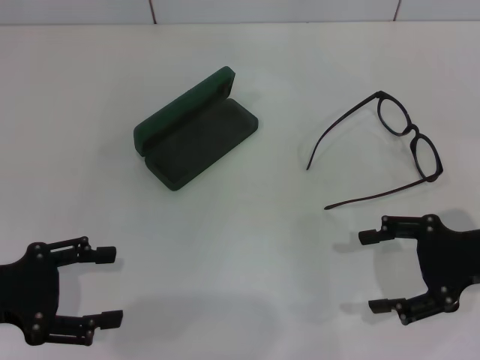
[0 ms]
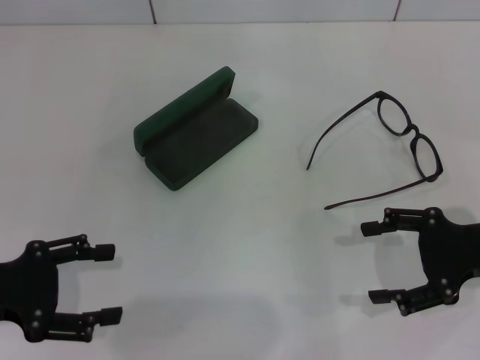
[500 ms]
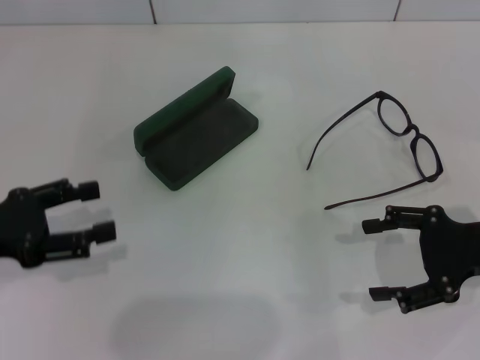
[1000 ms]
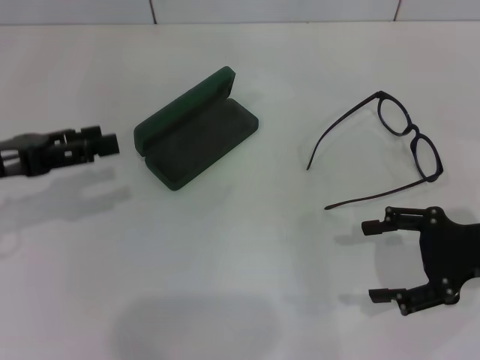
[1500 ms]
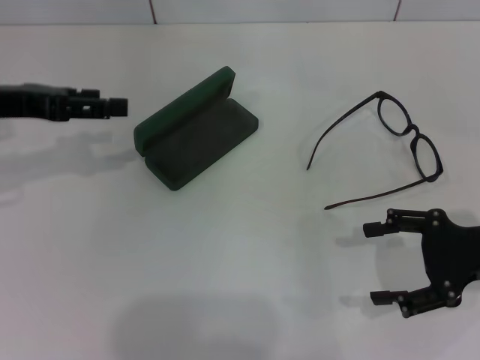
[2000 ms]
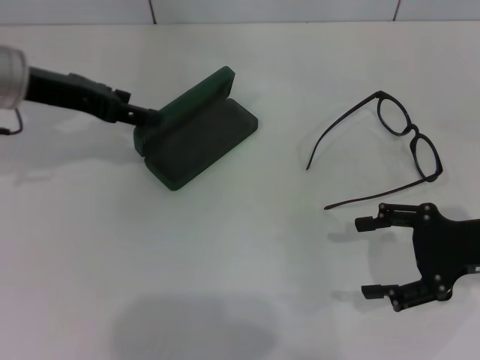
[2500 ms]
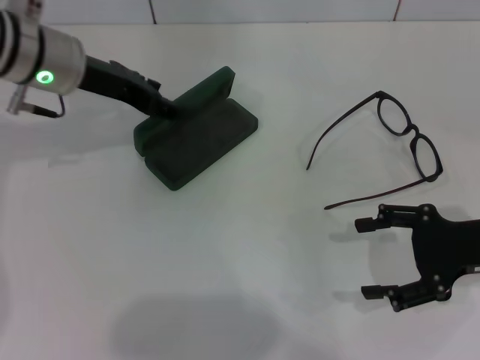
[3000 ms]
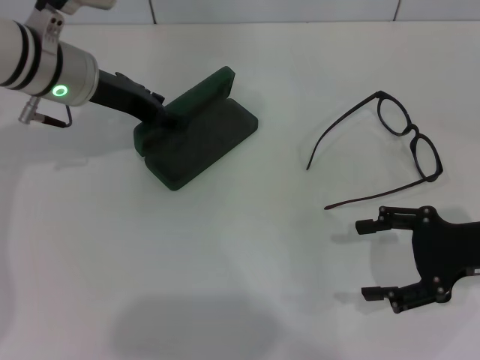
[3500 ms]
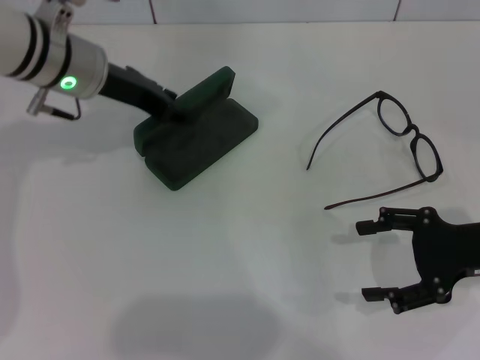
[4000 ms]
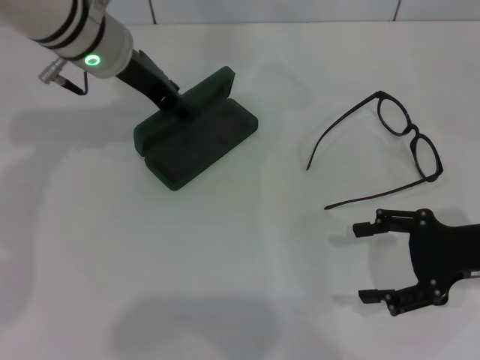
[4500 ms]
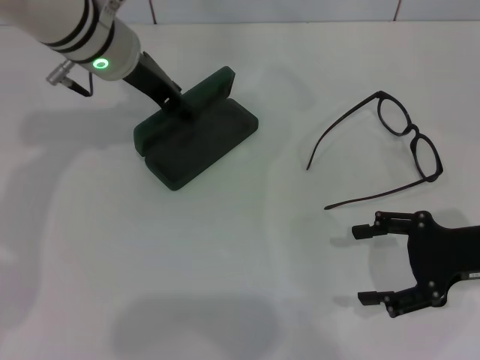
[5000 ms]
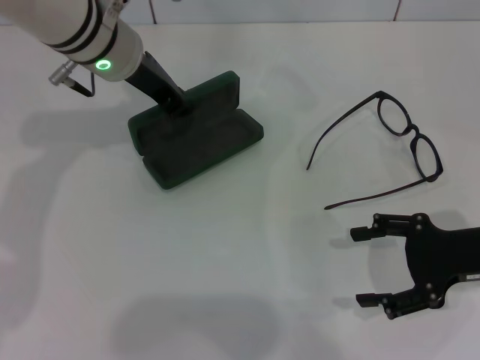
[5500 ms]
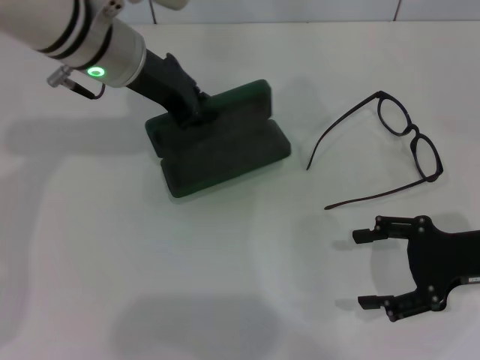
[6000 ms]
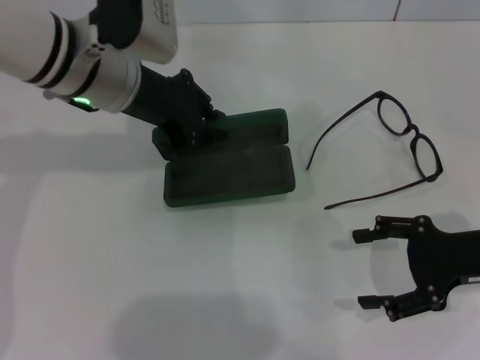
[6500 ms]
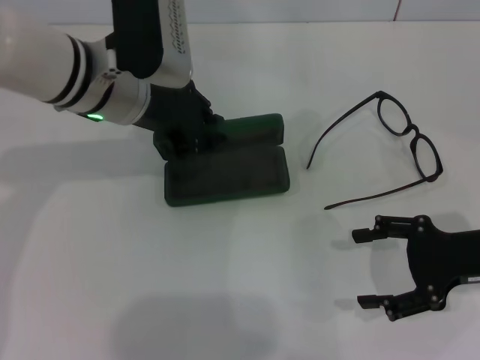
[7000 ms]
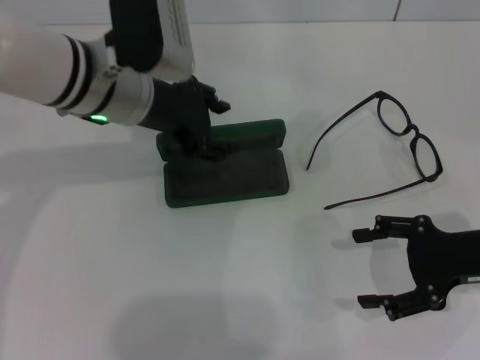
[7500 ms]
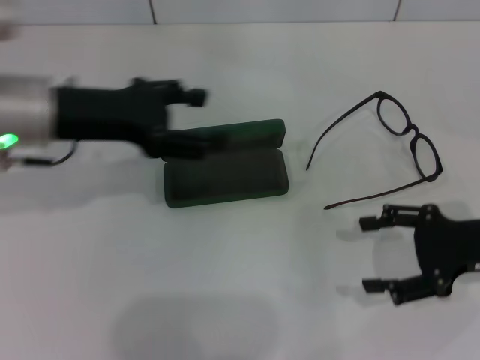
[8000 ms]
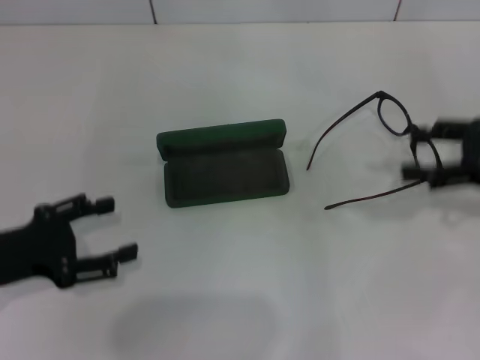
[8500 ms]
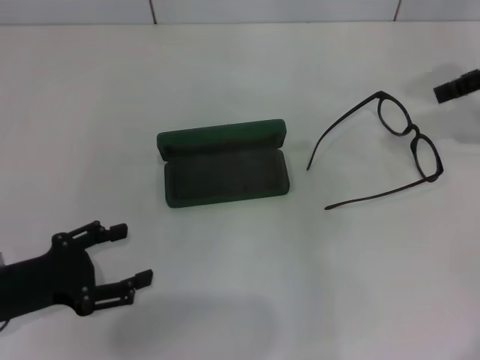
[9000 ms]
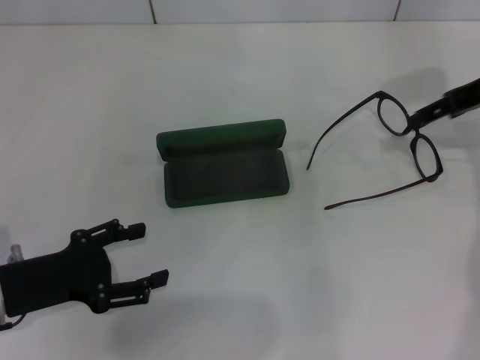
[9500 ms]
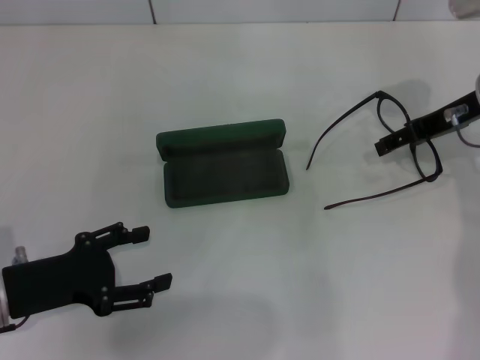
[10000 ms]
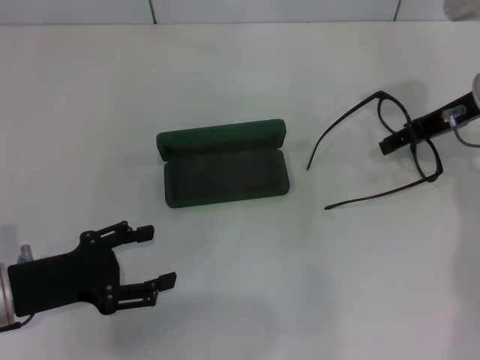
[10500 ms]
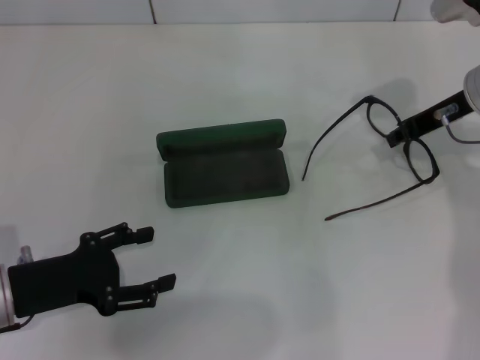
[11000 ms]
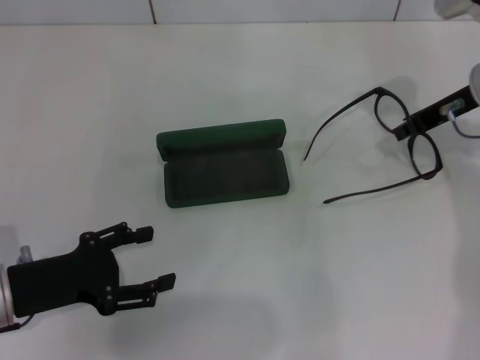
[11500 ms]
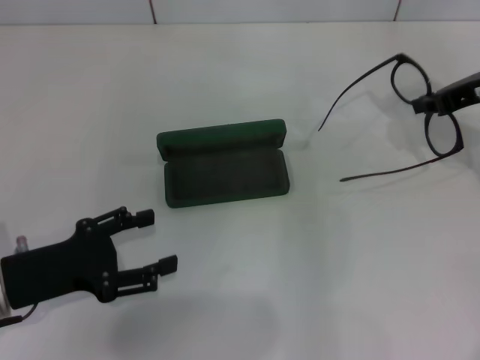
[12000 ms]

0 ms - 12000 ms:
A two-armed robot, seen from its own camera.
Step, 0 ms - 5000 ms: Grab the glasses case with your left hand.
Step, 6000 ms - 7000 ms: Place the glasses case in the center of the table with your left hand.
Step, 7500 ms - 11000 ms: Grab the eyeglass frame with your right hand.
0 ms - 2000 ms: The left gripper goes some 15 cm forward and upward.
2000 ms - 4000 ms: The left gripper moves to the right and forward, some 15 cm.
4000 ms - 6000 ms: The left gripper ends up some 5 cm from where it was, and closes its fingers.
6000 ms - 8000 ms: The left gripper goes about 10 cm to the left and backward, and opens up.
8000 ms - 10000 ms: The right gripper moves forward and upward, about 15 cm; the left gripper moves downward, backward and to the left, approximately 20 cm.
10000 ms - 12000 ms: The right gripper closes its fingers.

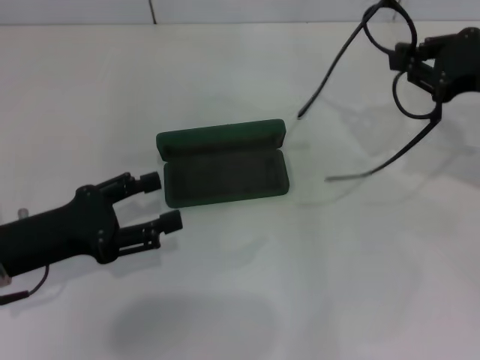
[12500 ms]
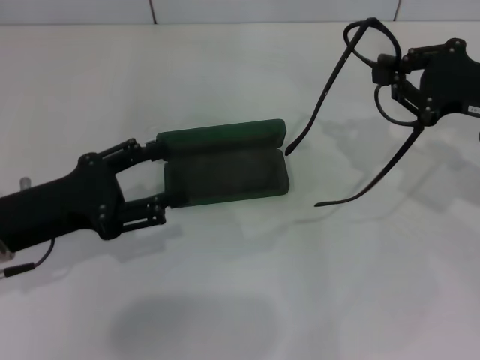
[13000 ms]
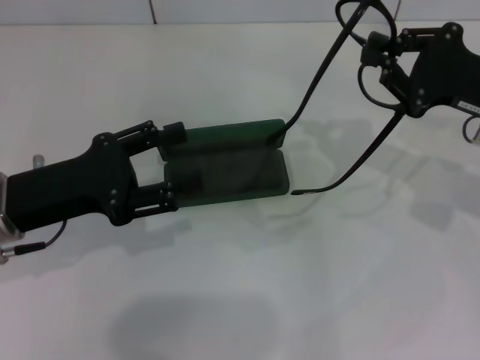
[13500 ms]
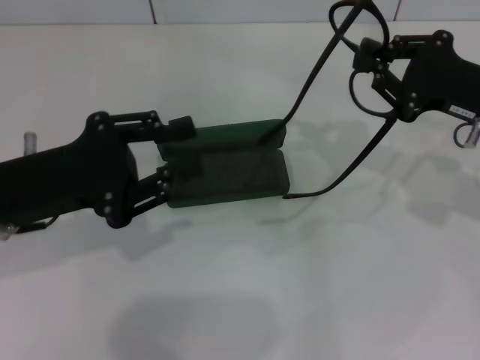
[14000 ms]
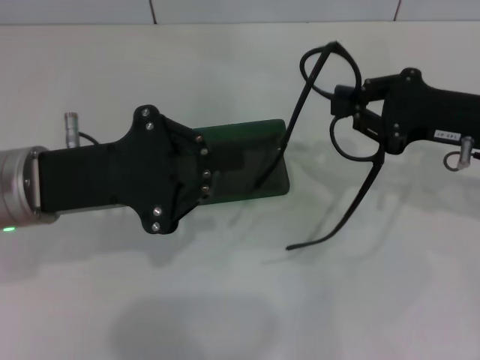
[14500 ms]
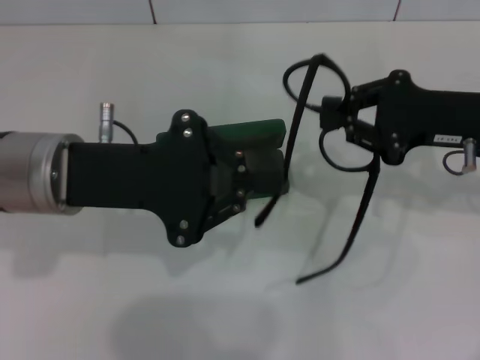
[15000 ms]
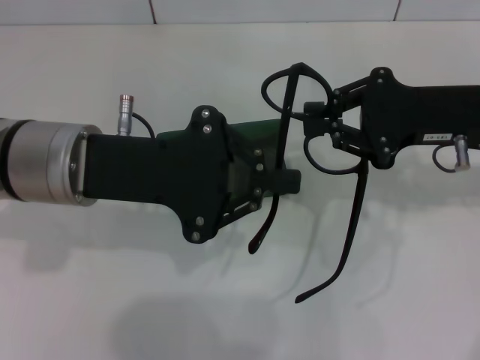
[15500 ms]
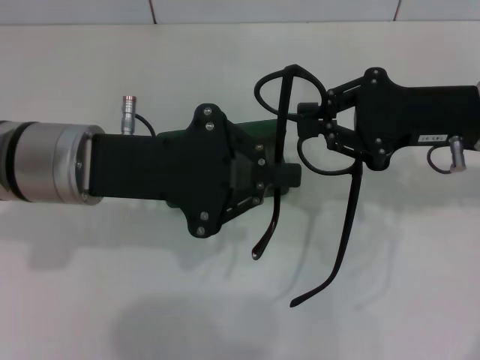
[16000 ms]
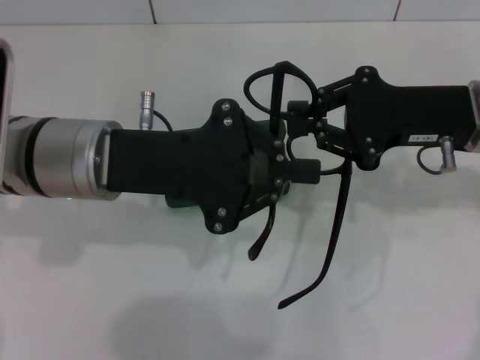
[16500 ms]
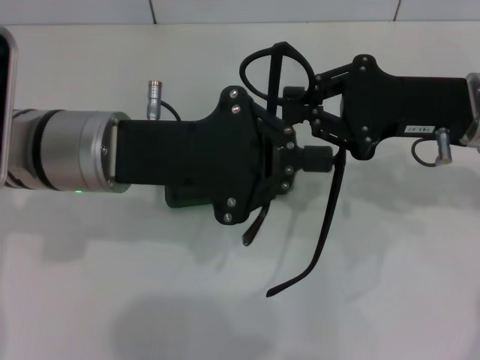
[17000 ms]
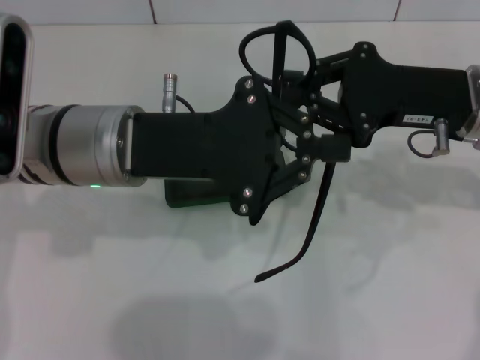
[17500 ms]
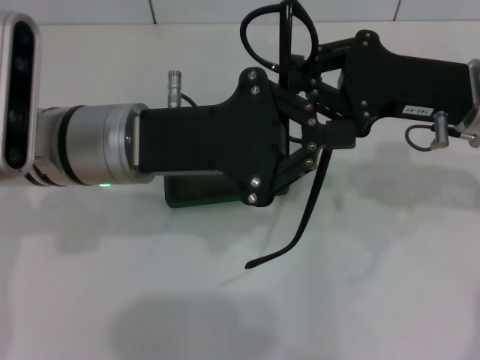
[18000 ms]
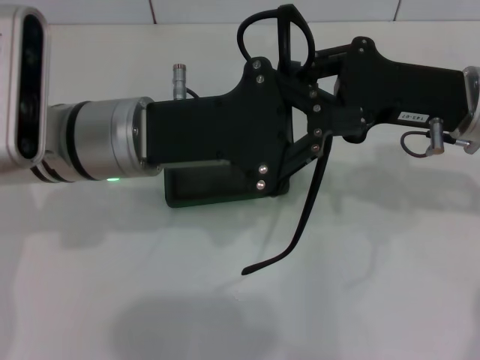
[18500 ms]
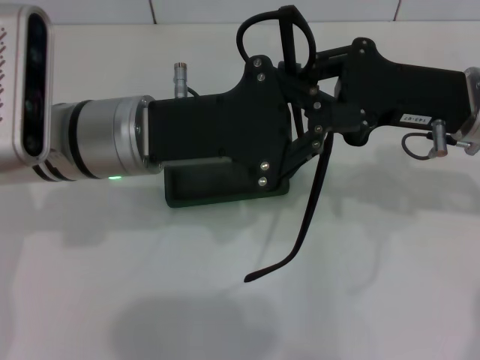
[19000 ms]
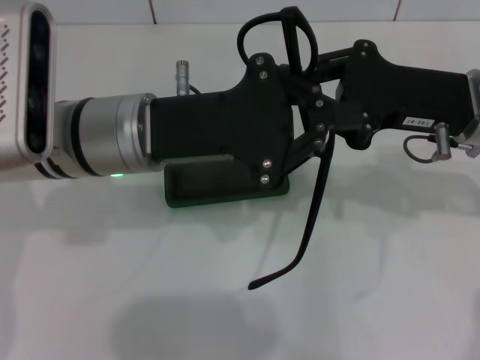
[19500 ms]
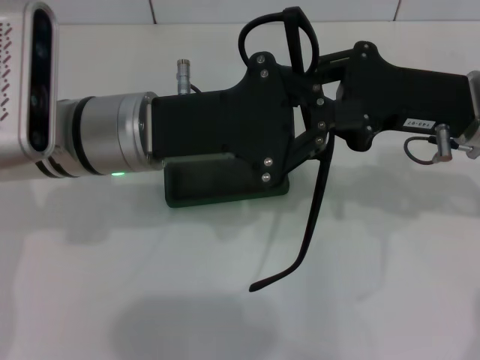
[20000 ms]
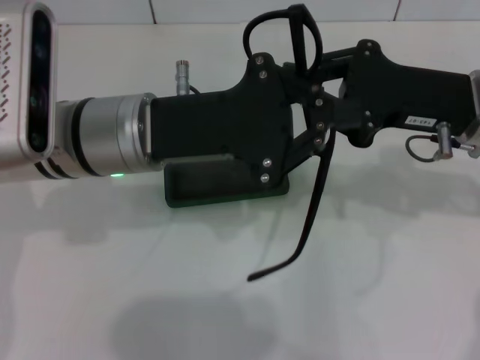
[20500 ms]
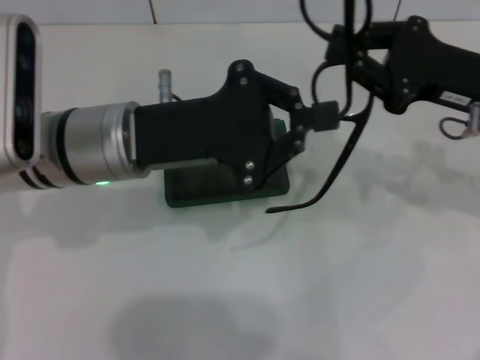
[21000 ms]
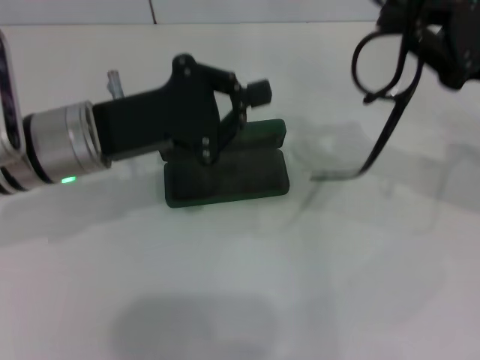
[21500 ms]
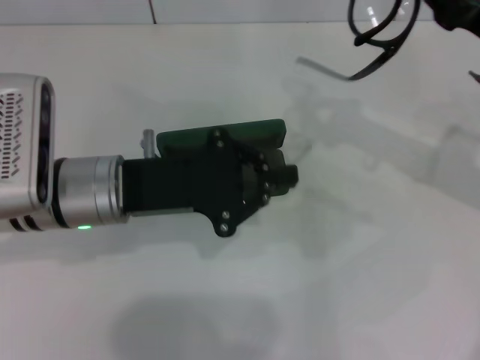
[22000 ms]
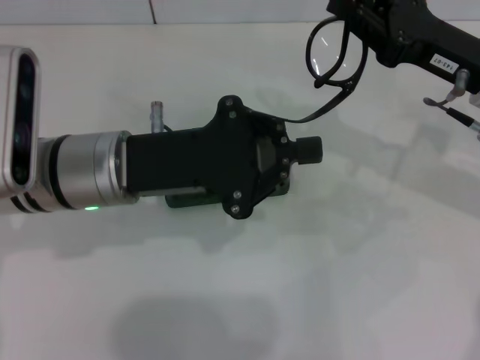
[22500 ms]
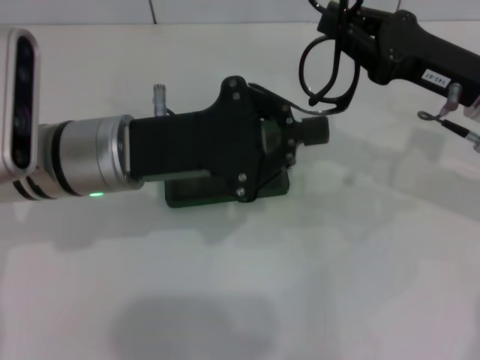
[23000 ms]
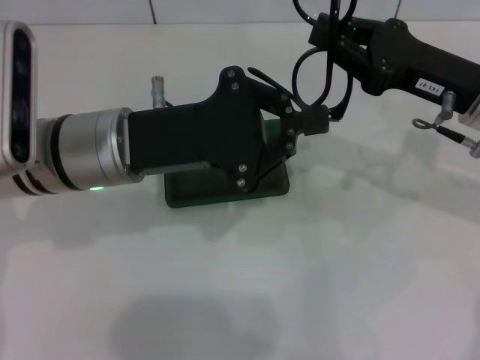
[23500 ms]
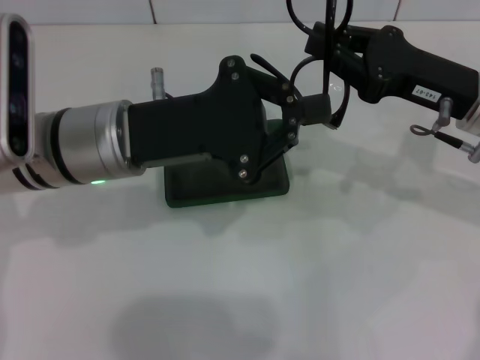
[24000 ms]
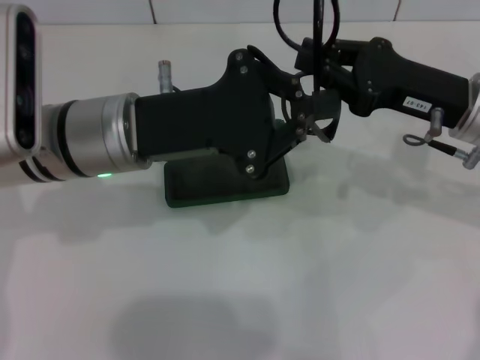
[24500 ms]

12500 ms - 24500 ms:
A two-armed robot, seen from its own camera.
12500 ms - 14500 ms: The left gripper shifts some 10 cm upward and to the right, and closes its fingers. Meanwhile the right gripper shifts by roughly 5 cm.
14500 ms - 16500 ms: The left gripper moves to the right, some 5 cm.
18500 ms - 20500 ms: Both grippers stay about where they are.

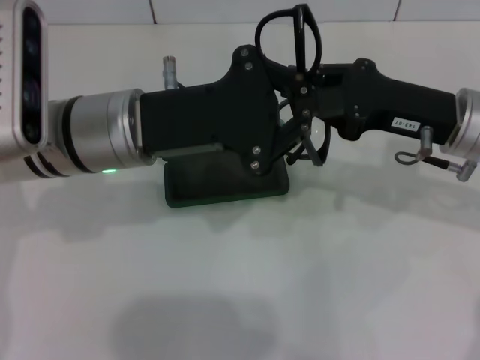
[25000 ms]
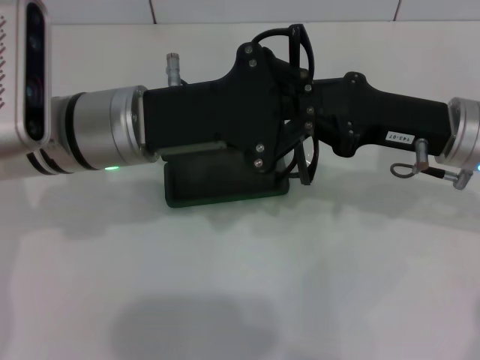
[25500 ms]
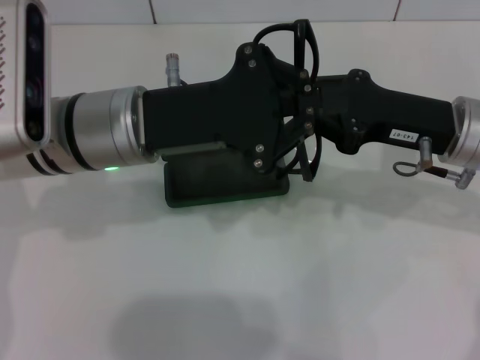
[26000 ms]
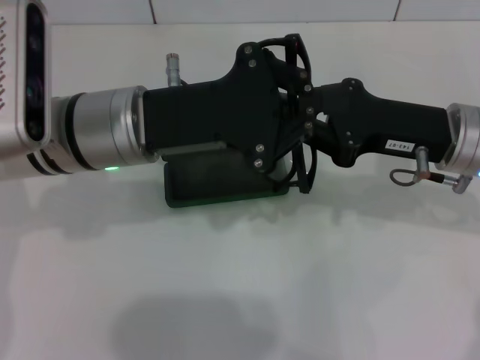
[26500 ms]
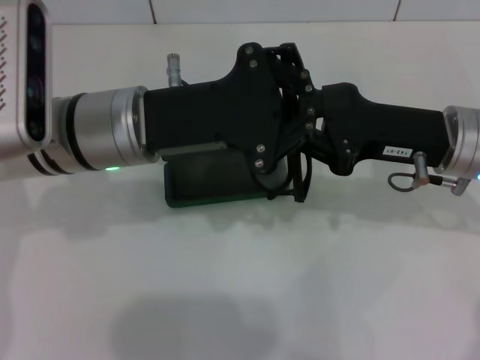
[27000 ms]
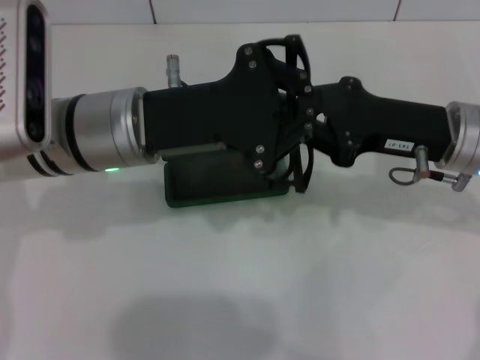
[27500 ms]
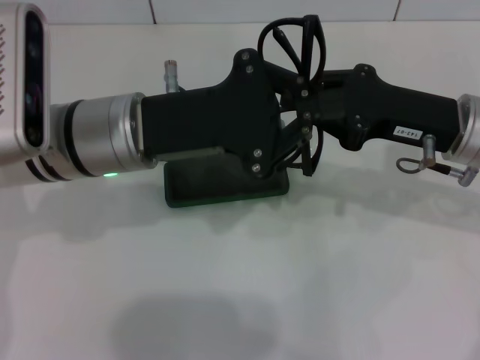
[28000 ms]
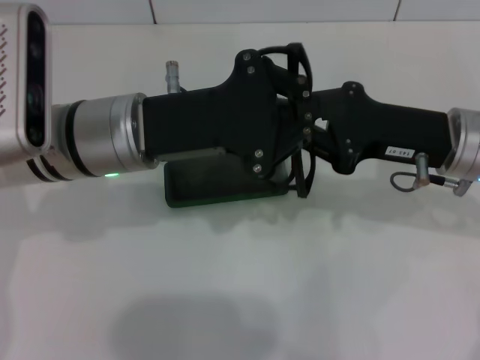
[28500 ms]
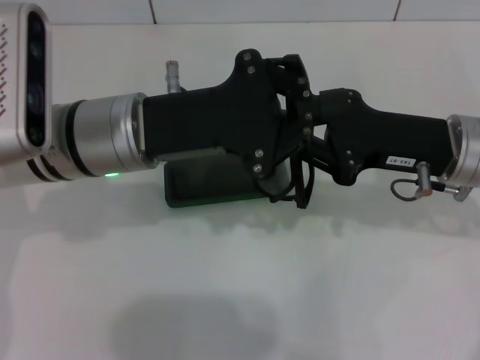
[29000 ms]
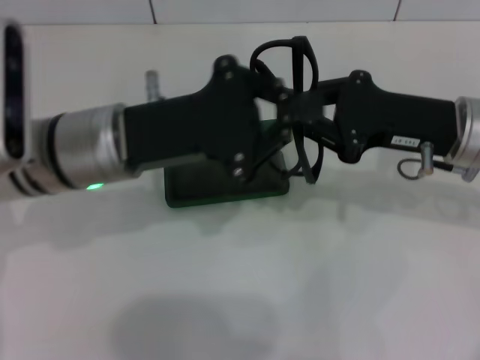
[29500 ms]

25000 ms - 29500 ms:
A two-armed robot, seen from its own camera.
Step, 25000 ms - 28500 ms: Fold the frame with your left hand.
25000 ms - 29500 ms: There are only small adjustments of the grippers.
